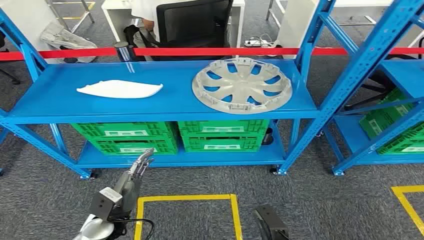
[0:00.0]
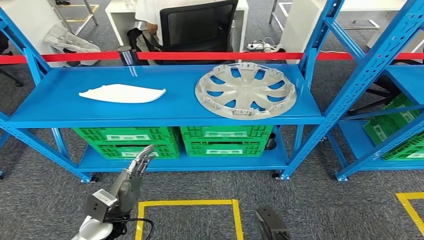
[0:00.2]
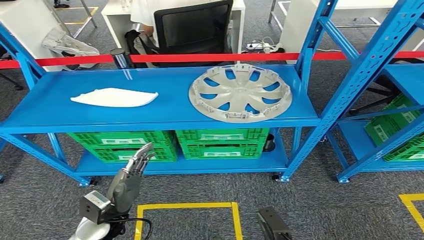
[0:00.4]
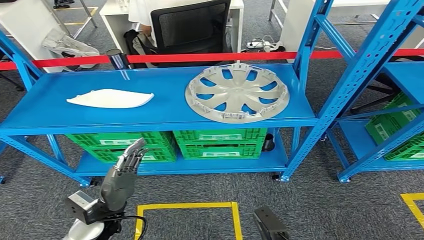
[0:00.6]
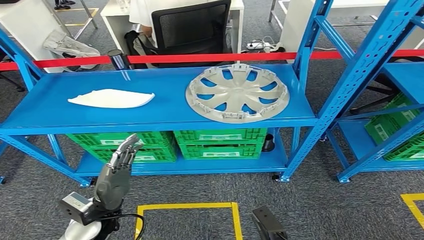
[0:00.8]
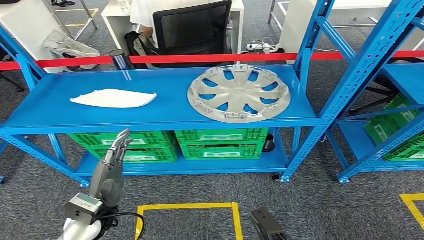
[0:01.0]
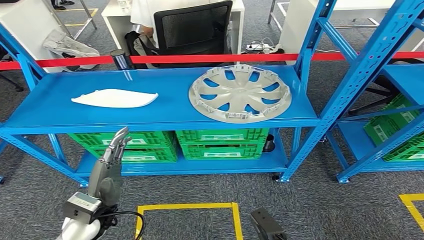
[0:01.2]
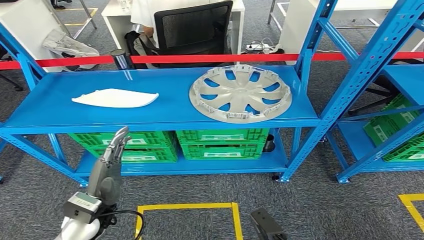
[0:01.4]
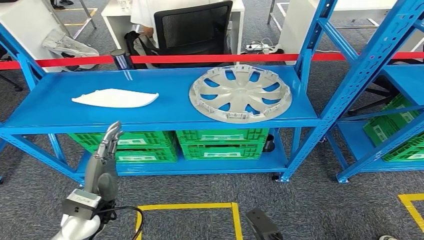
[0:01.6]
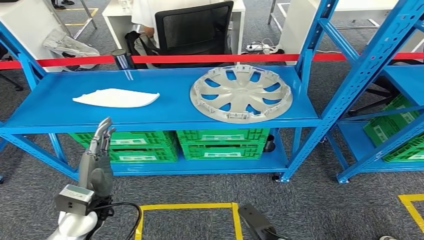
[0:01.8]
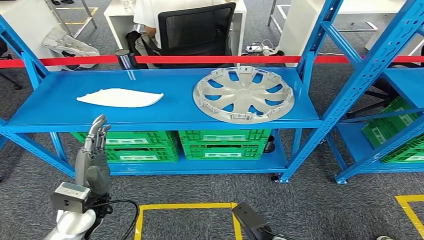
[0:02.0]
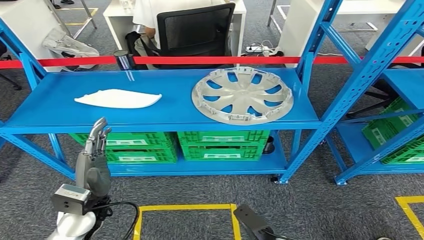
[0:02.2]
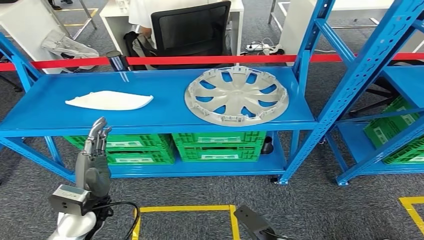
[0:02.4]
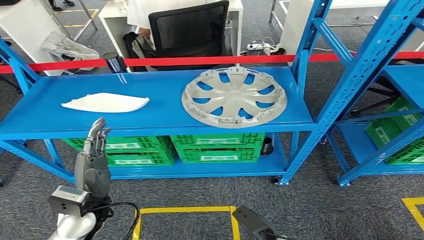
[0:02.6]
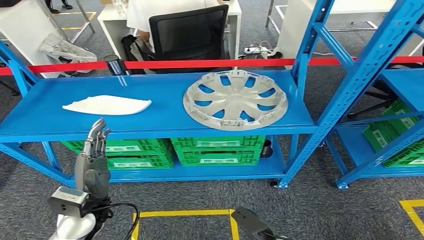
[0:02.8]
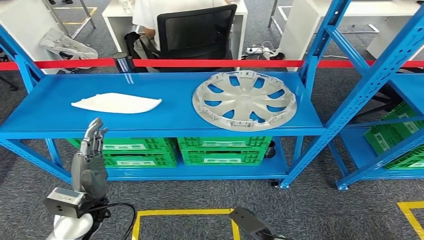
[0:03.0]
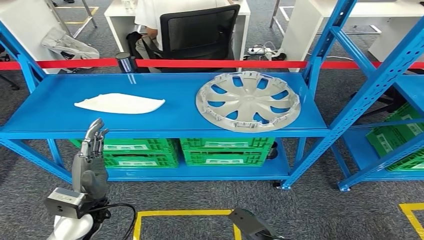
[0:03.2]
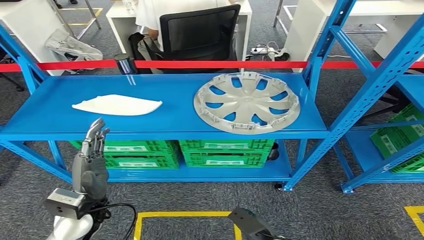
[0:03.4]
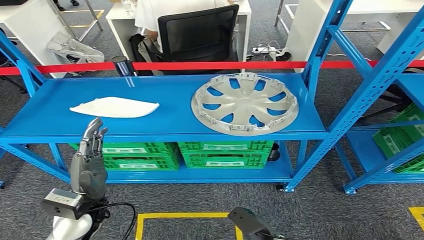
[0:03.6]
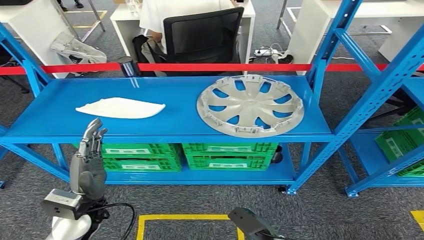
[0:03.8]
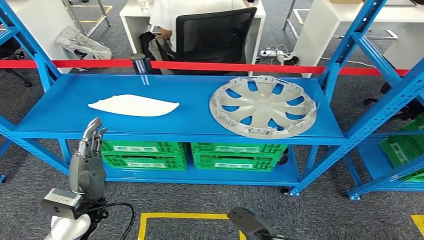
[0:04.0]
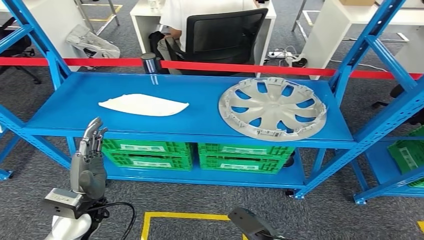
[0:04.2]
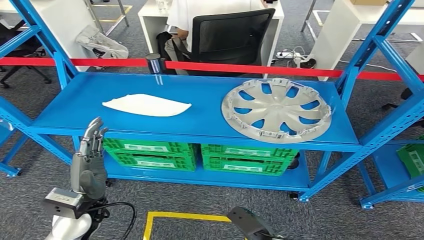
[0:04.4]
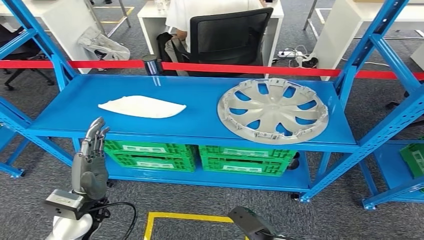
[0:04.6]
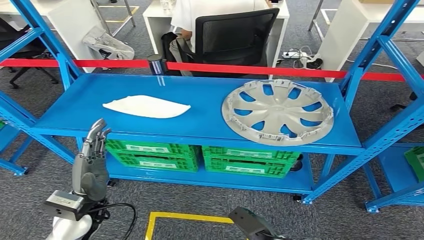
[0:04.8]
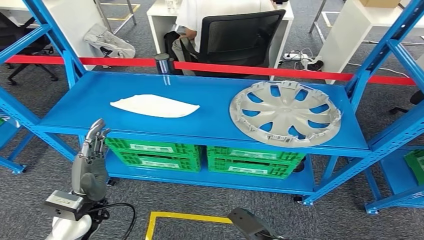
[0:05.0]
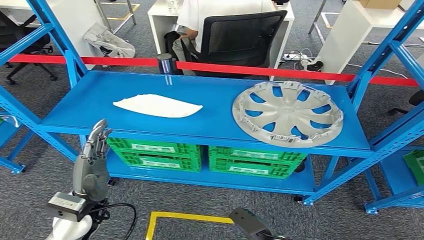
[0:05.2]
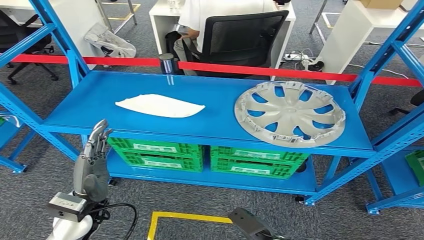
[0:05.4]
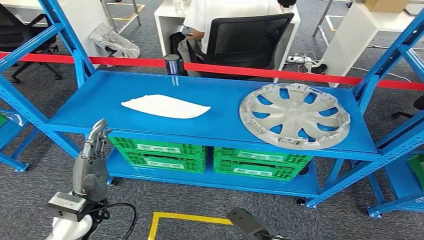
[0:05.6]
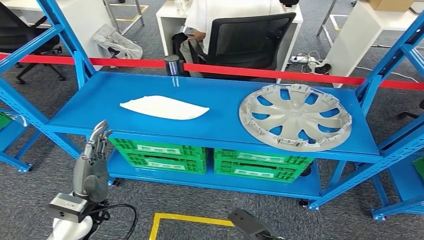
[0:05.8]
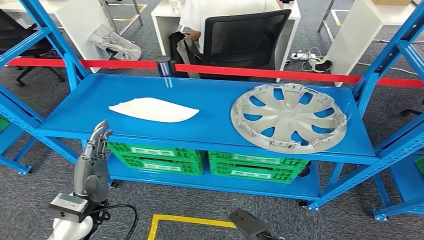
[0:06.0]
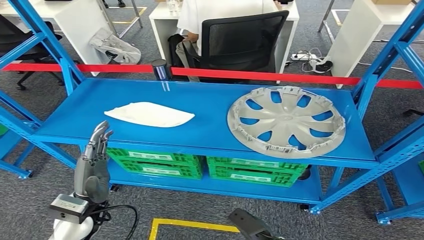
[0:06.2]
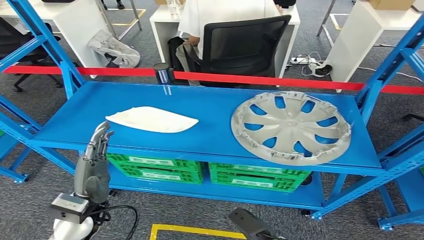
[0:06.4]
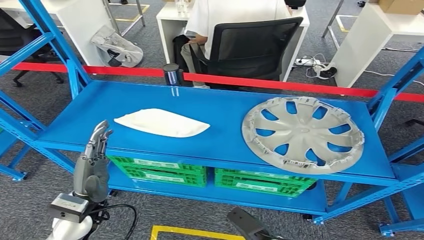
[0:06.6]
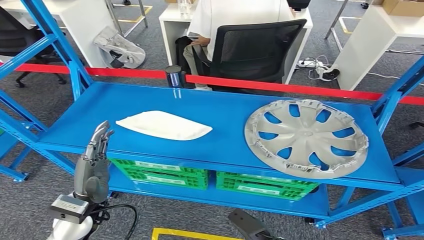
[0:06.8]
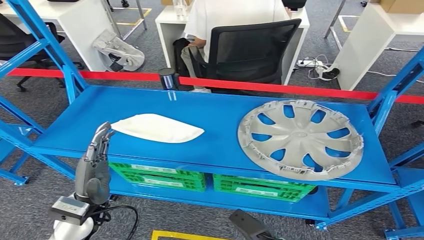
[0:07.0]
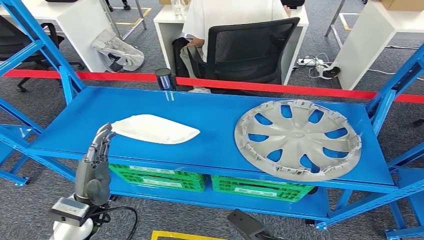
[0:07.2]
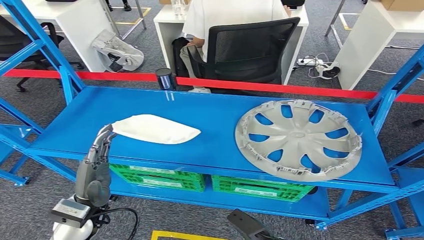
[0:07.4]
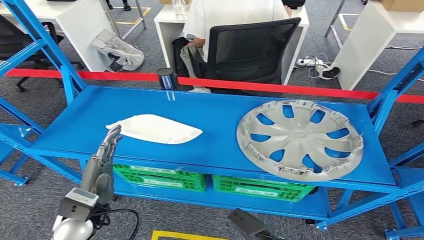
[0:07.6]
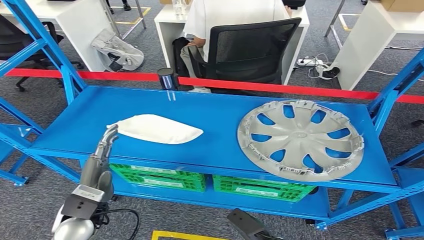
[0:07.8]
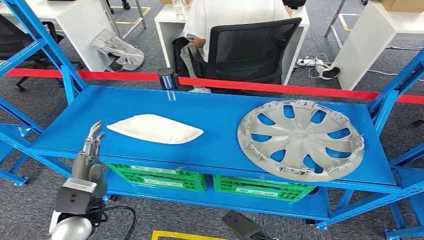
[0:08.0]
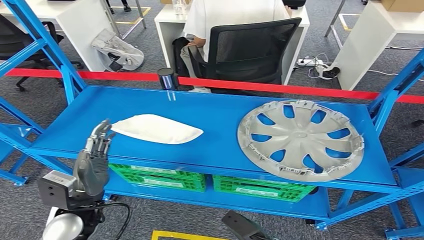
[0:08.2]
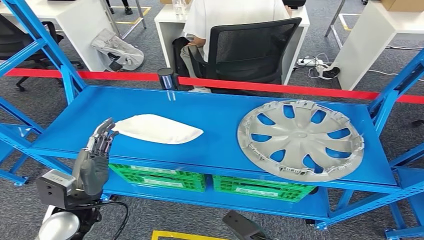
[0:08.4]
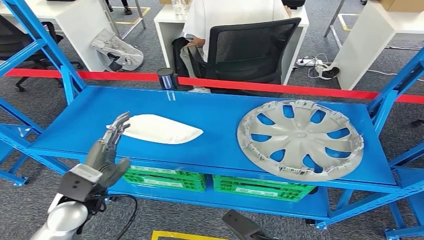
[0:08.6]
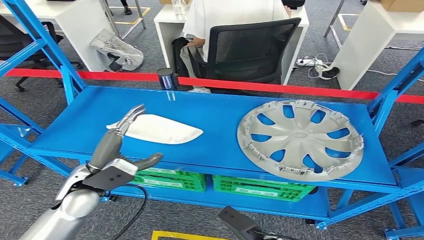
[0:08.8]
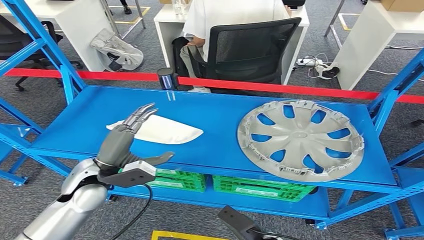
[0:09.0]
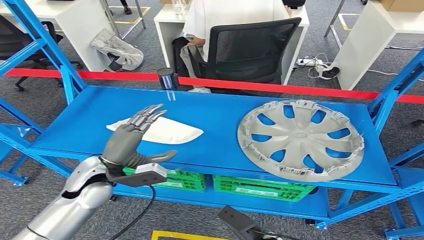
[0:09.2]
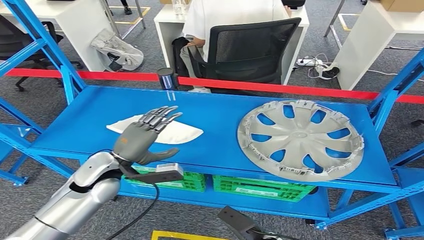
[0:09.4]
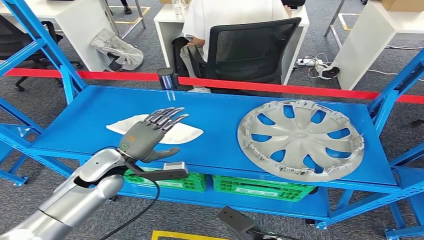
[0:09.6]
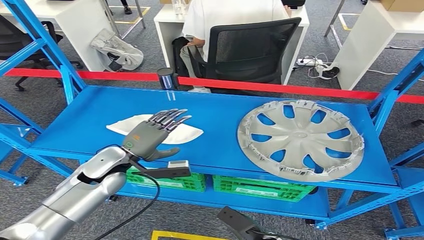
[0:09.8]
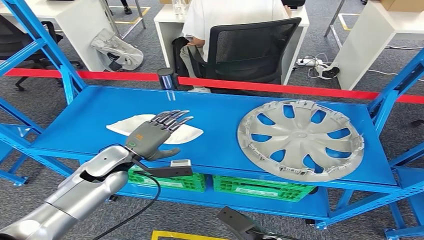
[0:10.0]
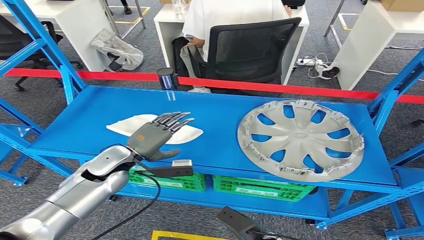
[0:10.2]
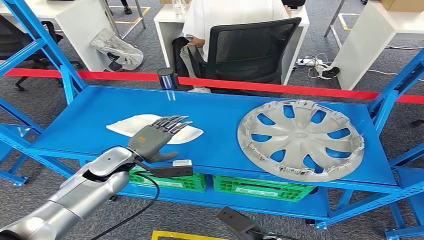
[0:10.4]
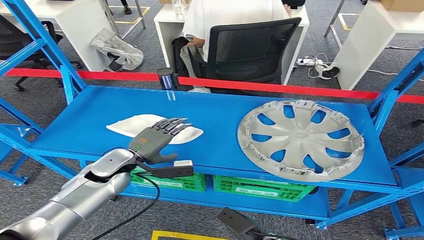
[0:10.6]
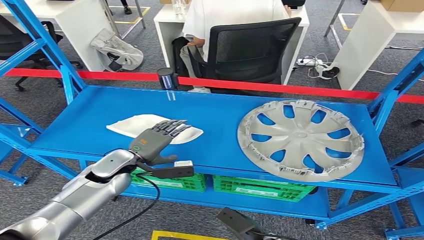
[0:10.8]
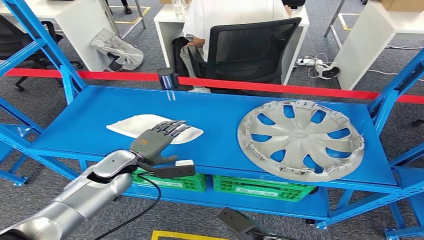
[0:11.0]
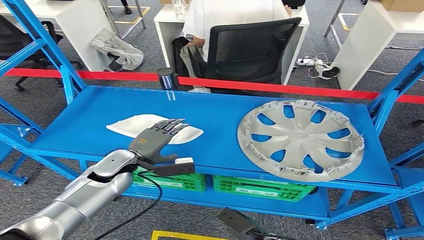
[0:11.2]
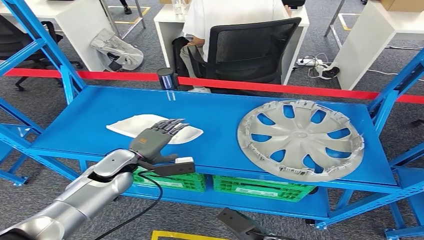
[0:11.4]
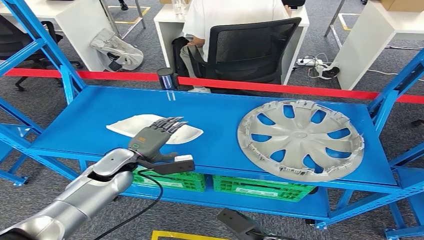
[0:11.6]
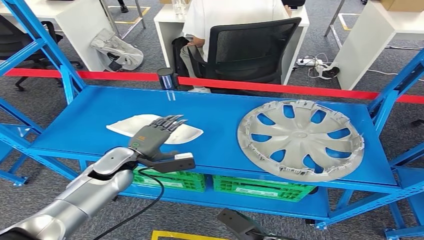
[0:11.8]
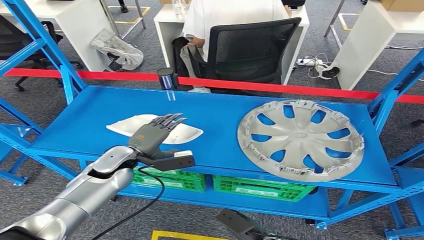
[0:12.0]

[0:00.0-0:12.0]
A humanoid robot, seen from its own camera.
0:07.6 to 0:09.0: The left hand is displaced forward by approximately 10 cm.
0:09.0 to 0:10.4: The left hand ends up some 5 cm from where it was.
0:10.4 to 0:12.0: The hands move only a little.

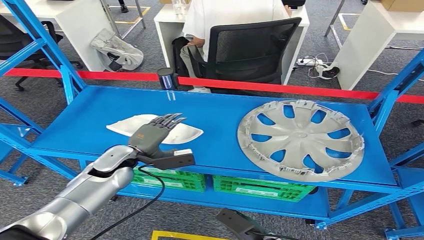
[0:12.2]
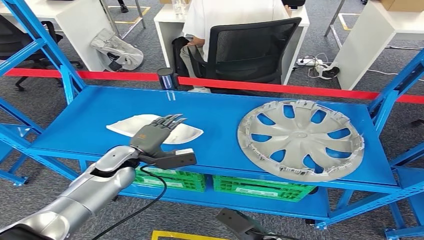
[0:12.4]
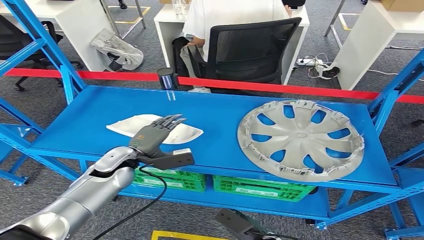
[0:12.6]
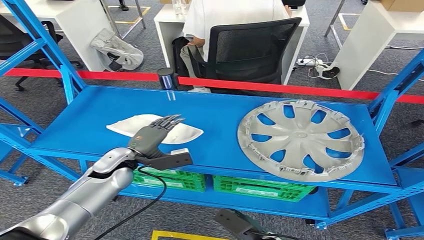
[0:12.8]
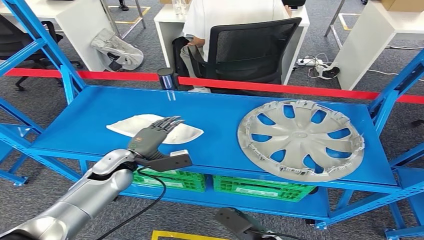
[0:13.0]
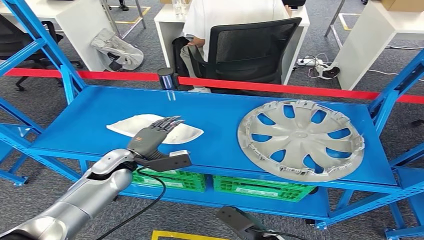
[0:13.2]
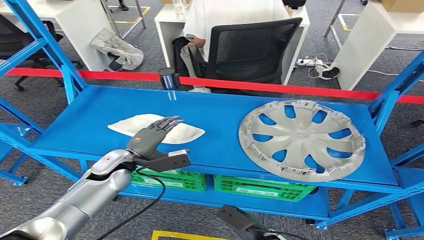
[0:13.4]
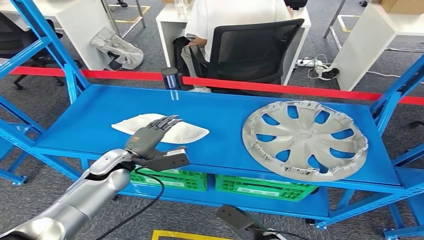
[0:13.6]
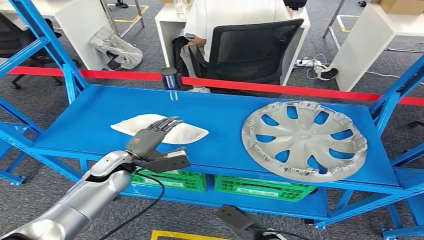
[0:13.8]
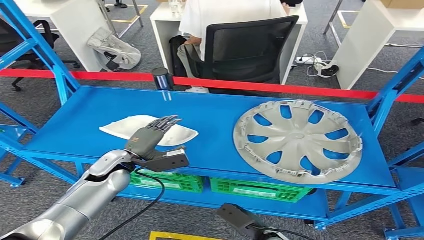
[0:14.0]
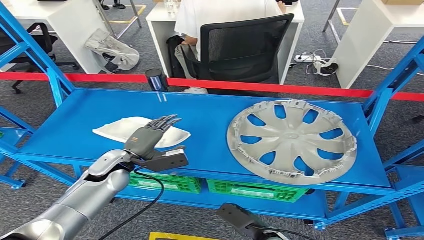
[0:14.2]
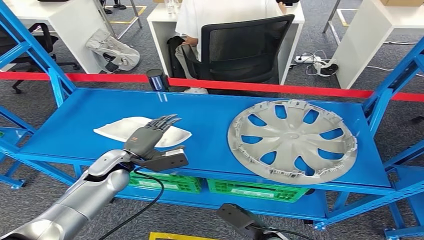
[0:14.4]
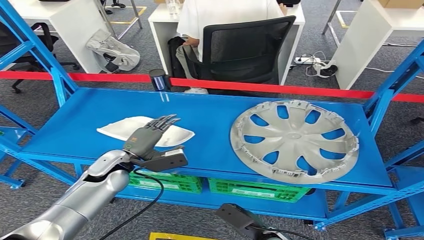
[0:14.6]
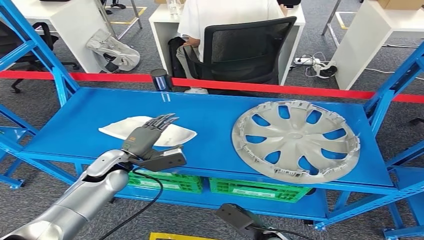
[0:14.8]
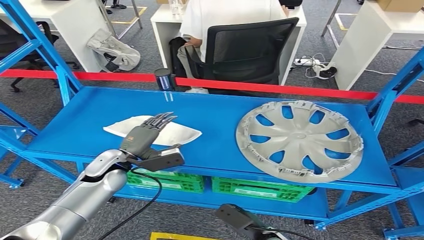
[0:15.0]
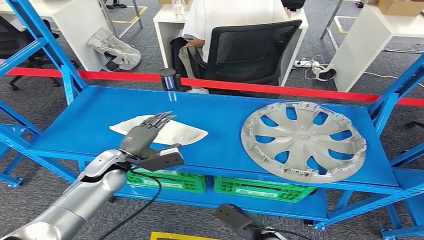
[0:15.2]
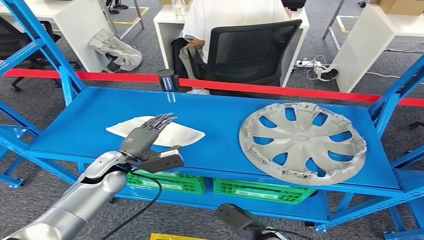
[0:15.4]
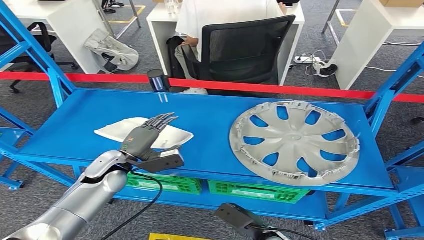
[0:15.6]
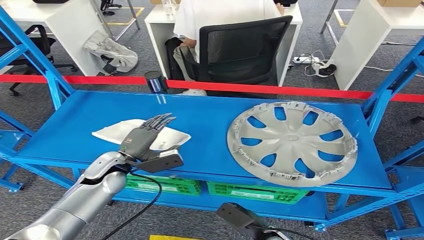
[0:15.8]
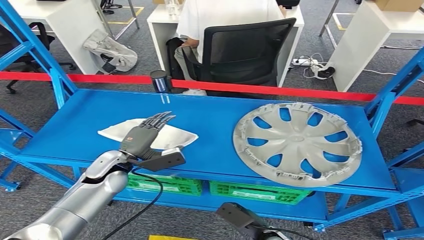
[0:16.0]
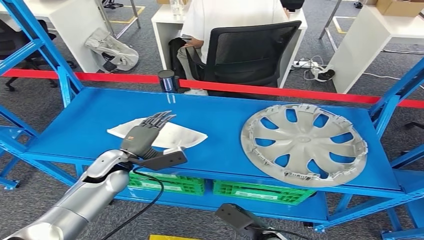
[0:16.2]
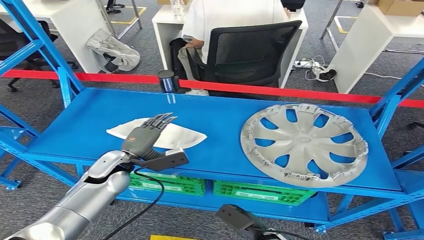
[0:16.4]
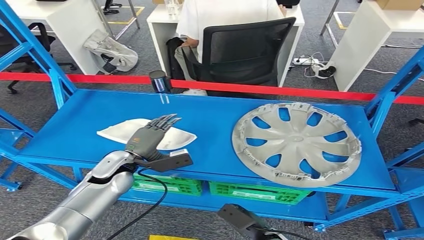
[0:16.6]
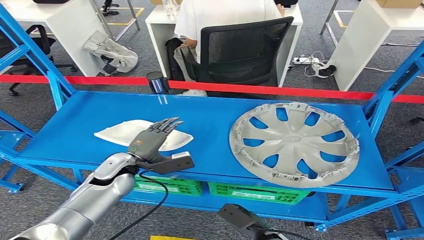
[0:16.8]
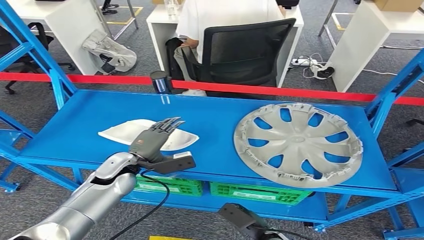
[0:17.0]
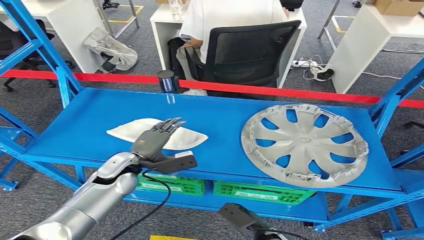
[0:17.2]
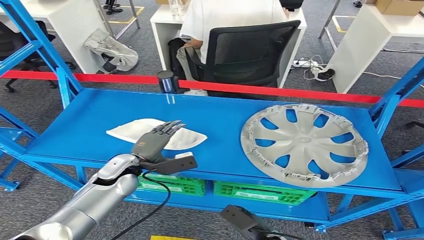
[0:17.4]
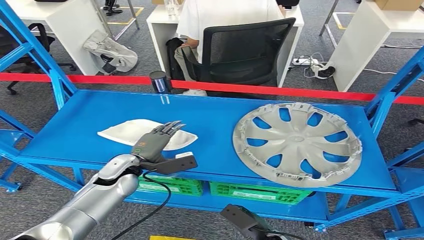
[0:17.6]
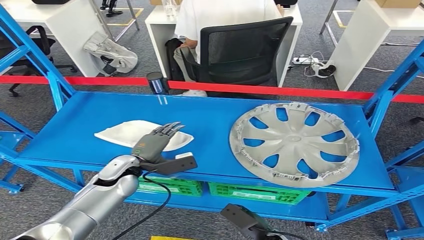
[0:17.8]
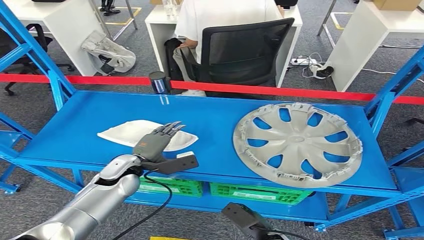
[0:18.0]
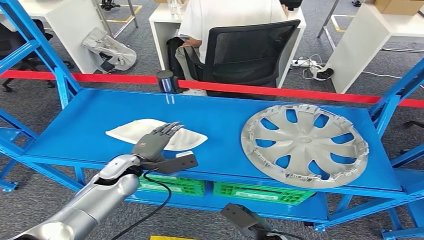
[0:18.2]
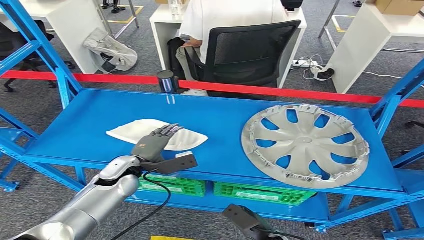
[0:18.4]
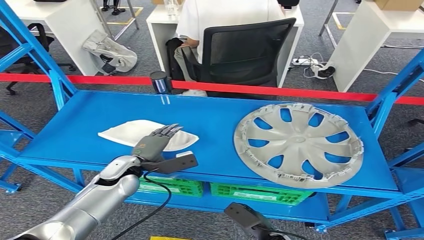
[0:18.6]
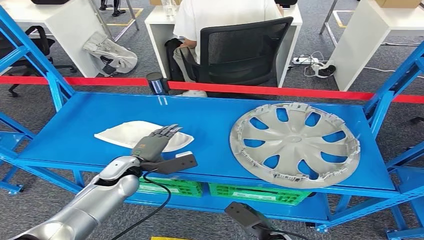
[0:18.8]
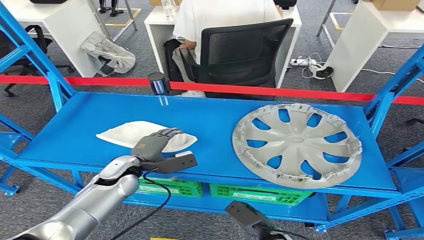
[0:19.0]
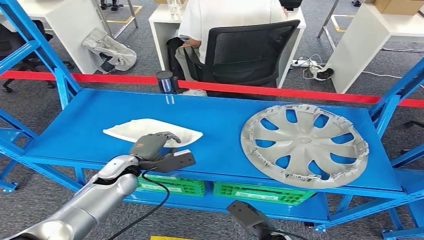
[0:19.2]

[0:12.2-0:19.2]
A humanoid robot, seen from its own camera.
0:12.2 to 0:13.6: There are only small adjustments of the hands.
